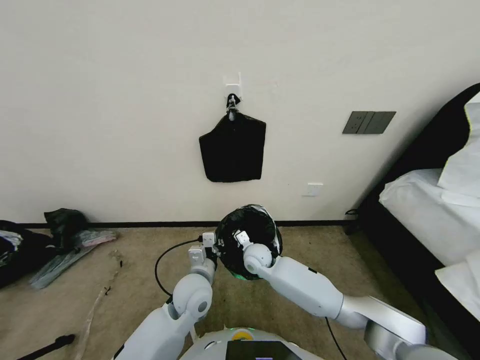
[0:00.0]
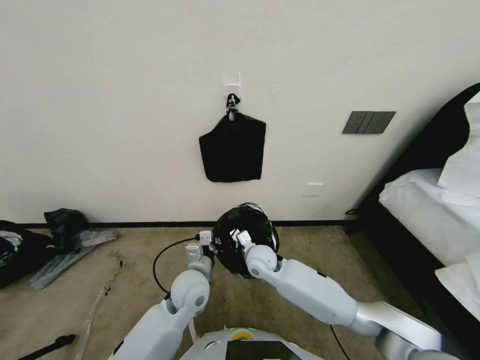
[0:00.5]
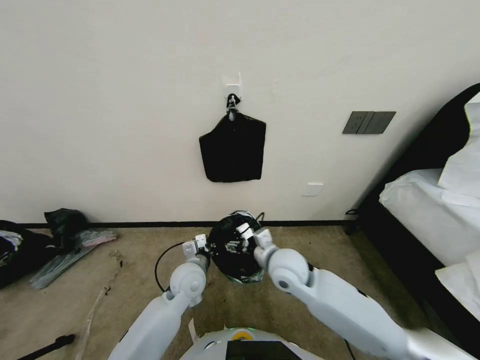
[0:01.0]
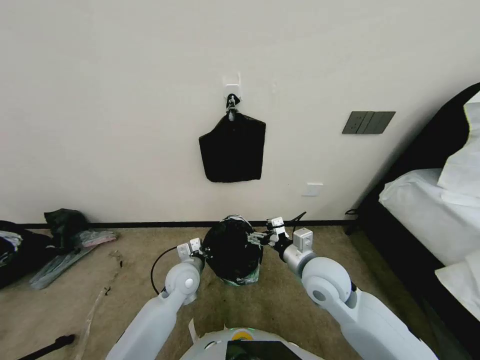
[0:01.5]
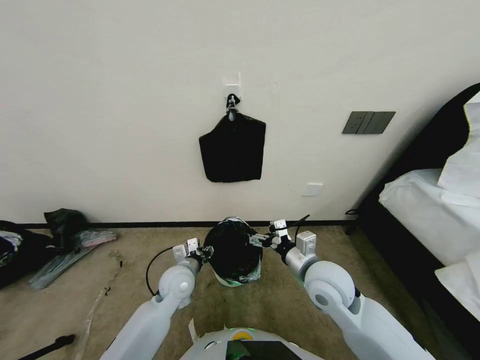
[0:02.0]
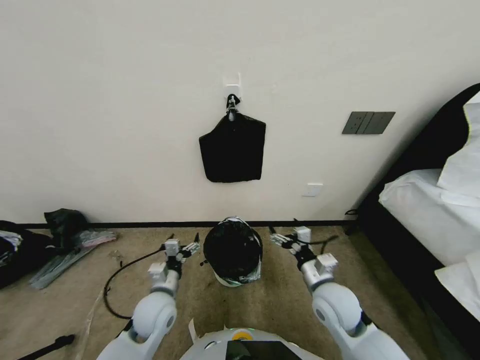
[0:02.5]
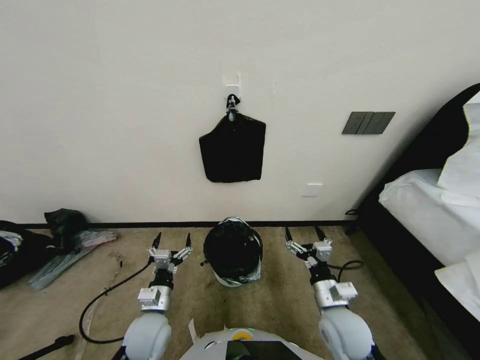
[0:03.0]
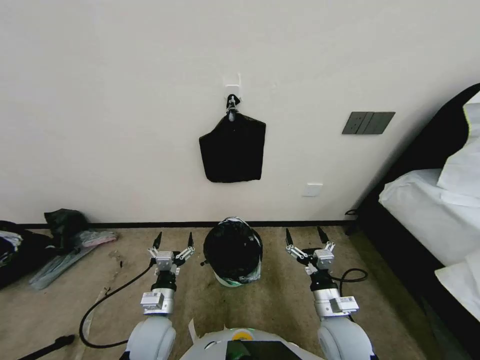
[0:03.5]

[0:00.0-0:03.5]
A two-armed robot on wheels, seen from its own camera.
Task of the whole recording: Place a trash bag onto the trash bin.
0:00.0 to 0:02.0: The right gripper travels upward, backward and to the right by some 25 cm, and opens its fingers, while the left gripper shifts some 5 cm to the left.
0:02.0 to 0:03.5: The left gripper is displaced backward by roughly 10 cm, and opens its fingers; the right gripper moves downward and backward, approximately 15 cm.

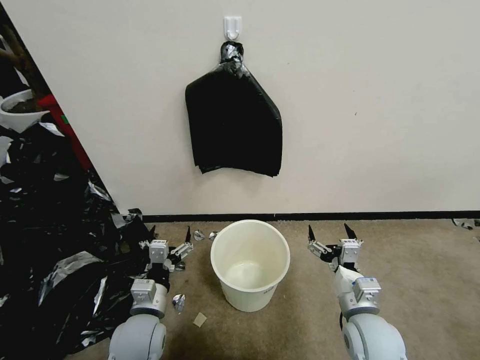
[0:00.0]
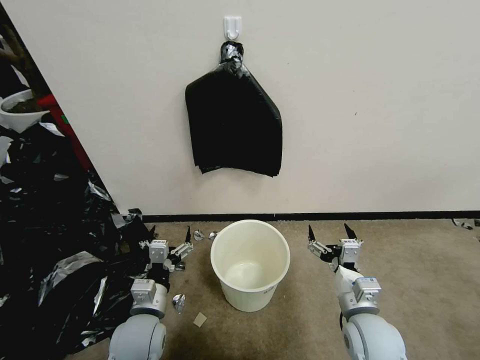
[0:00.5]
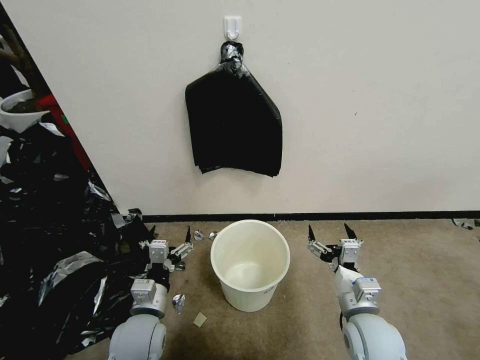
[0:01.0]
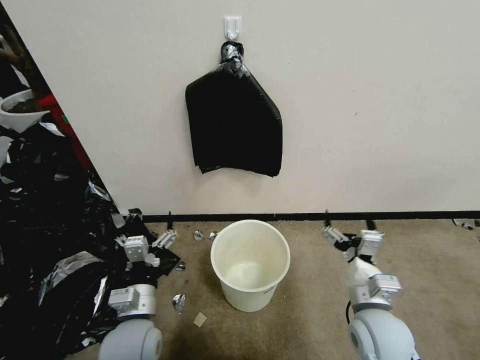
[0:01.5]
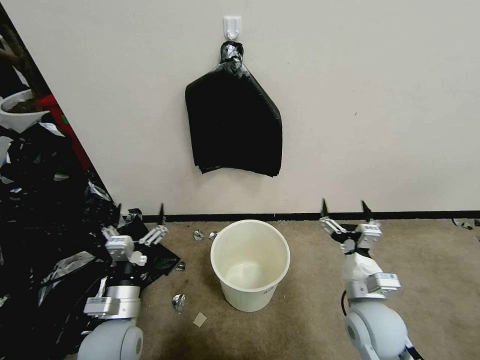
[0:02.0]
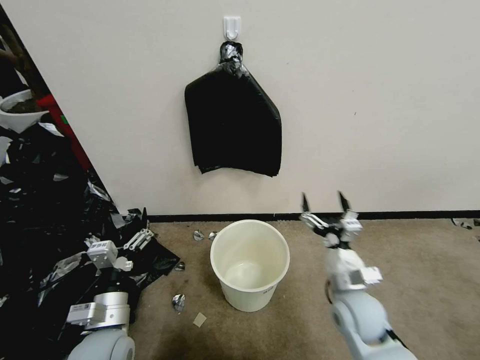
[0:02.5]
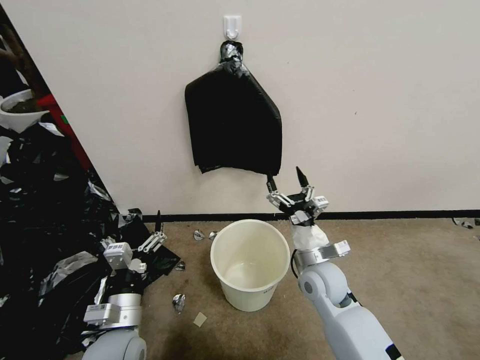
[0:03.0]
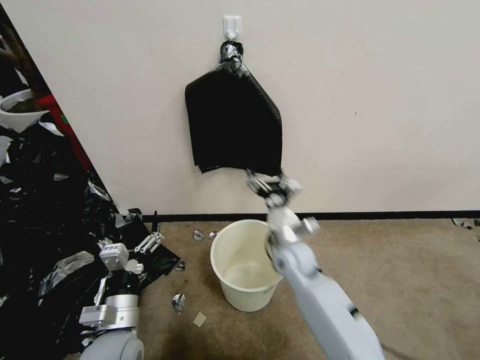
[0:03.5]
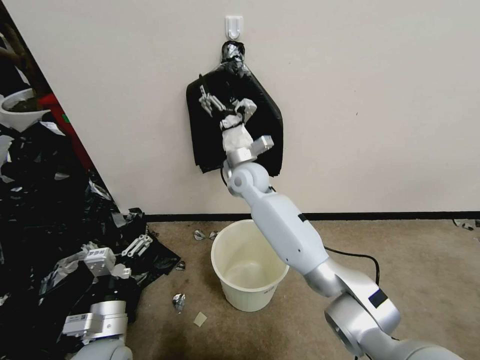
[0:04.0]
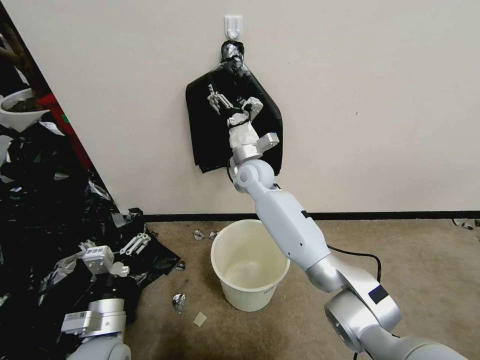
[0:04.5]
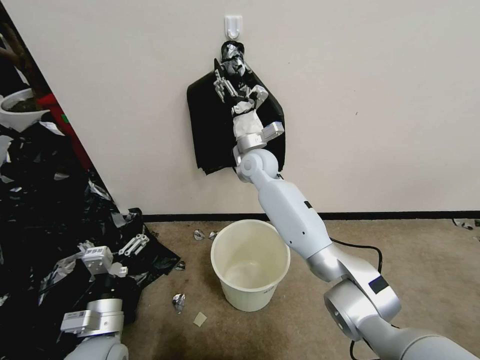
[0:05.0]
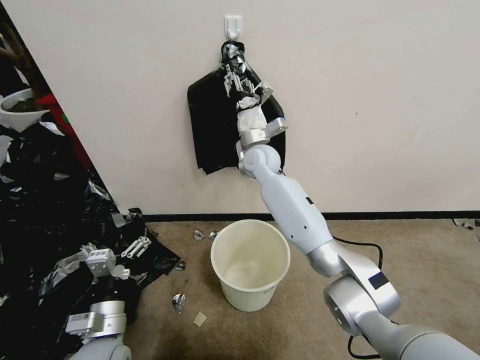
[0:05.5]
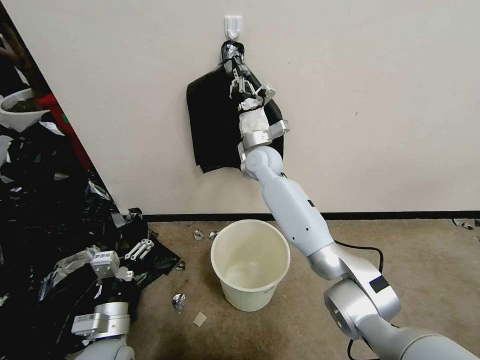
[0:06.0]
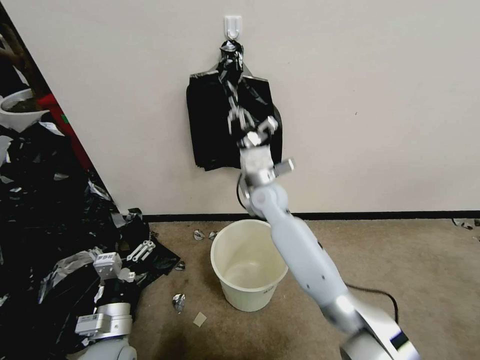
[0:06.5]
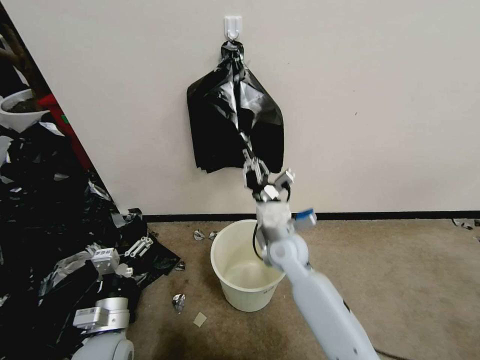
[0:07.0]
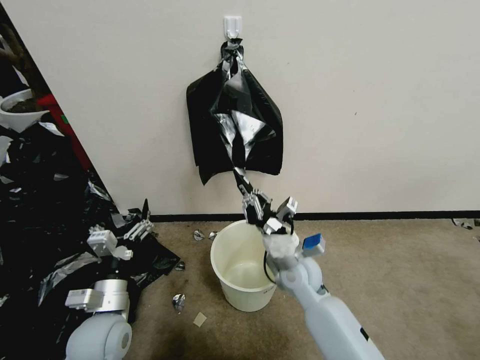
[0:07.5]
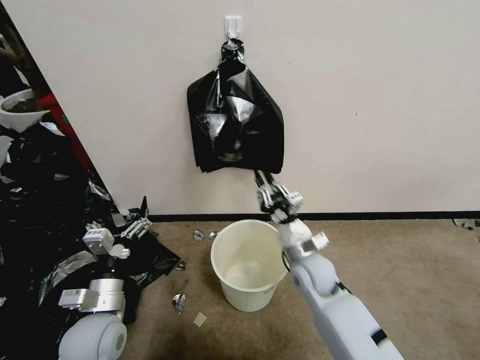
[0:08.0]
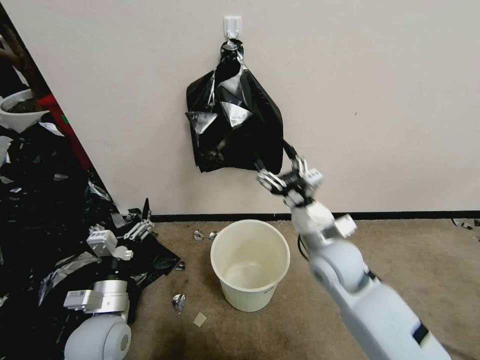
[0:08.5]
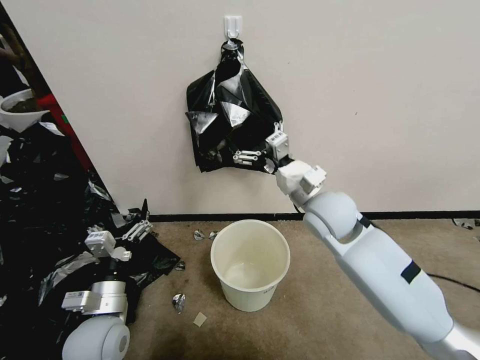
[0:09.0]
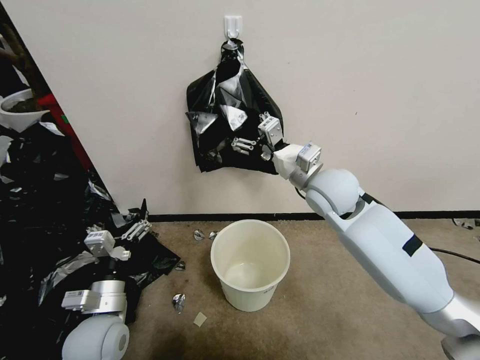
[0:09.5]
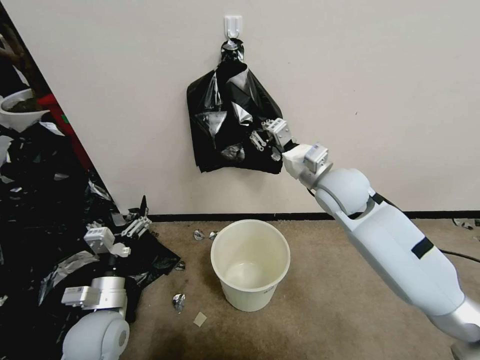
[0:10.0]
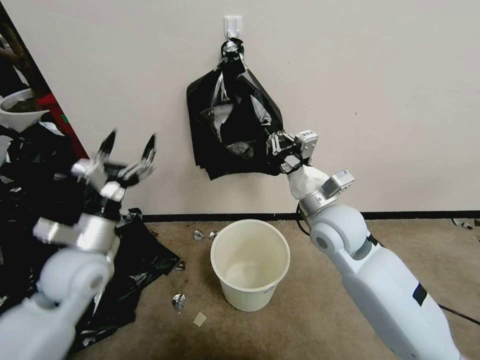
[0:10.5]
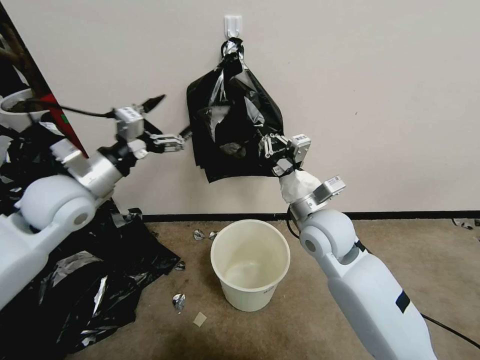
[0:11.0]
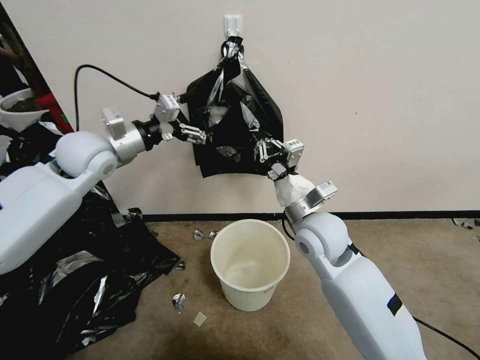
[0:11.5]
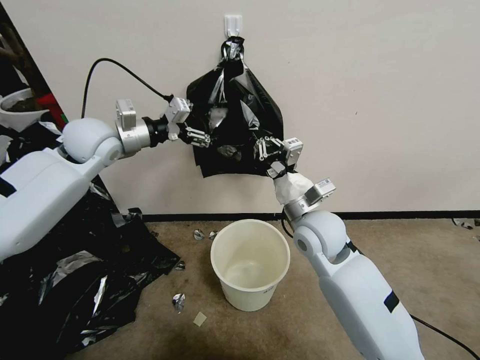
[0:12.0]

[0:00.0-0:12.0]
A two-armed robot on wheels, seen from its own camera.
Task of the whole recording: Place a trash bag onto the trash bin.
0:02.0 to 0:04.0: The right gripper moves forward and to the left, roughly 40 cm.
0:04.0 to 0:06.0: The right gripper shifts by approximately 5 cm, and closes.
0:06.0 to 0:08.0: The right gripper shifts roughly 30 cm backward, downward and to the right.
0:08.0 to 0:10.0: The right gripper moves upward and forward, roughly 20 cm, and opens, then closes again.
0:10.0 to 0:12.0: The right gripper travels backward and downward by about 10 cm. The left gripper goes approximately 40 cm forward and upward.

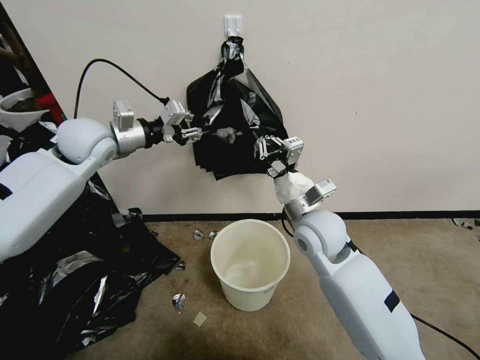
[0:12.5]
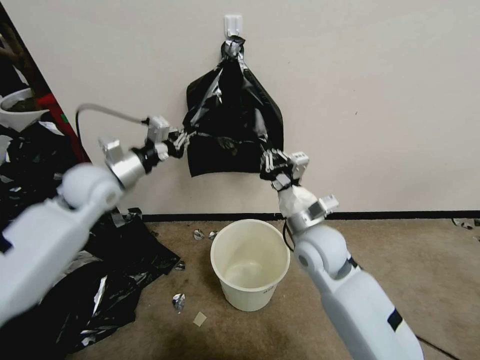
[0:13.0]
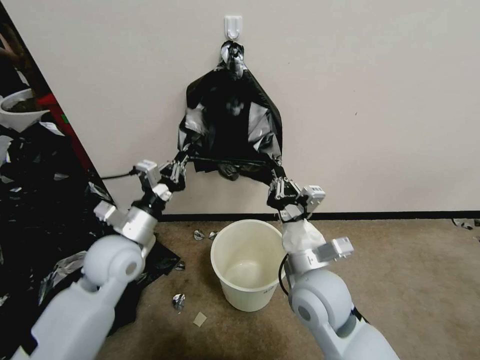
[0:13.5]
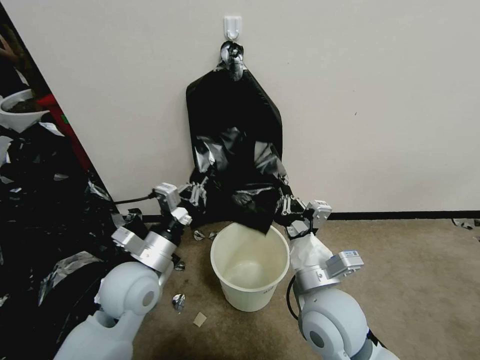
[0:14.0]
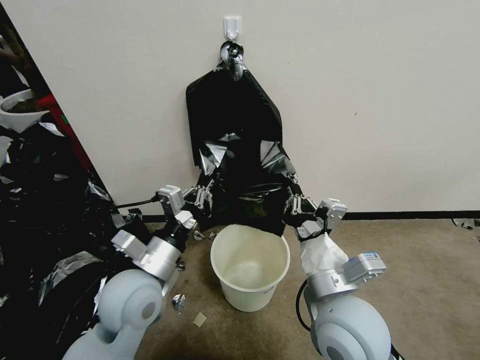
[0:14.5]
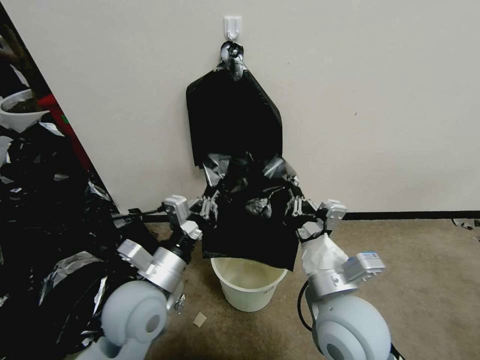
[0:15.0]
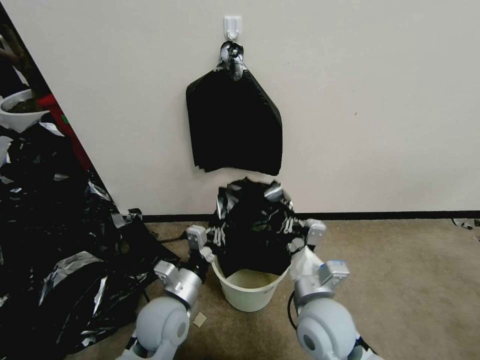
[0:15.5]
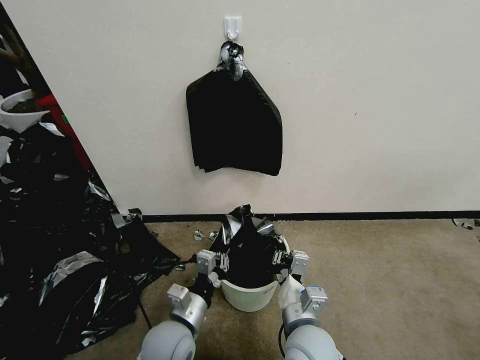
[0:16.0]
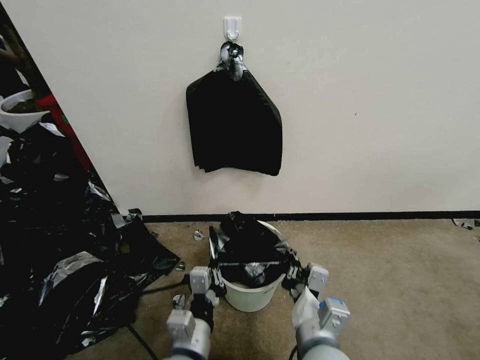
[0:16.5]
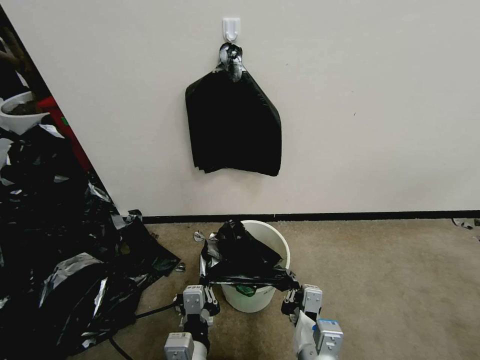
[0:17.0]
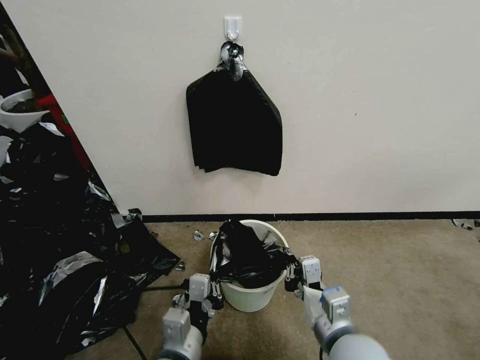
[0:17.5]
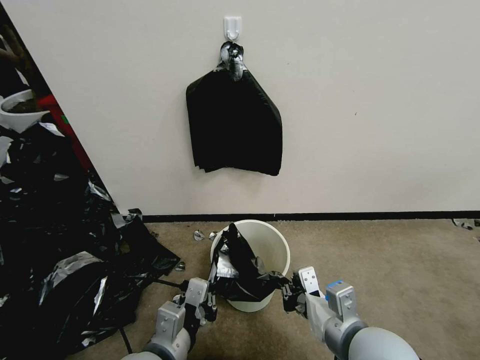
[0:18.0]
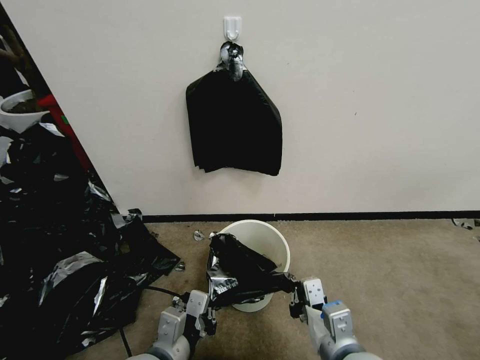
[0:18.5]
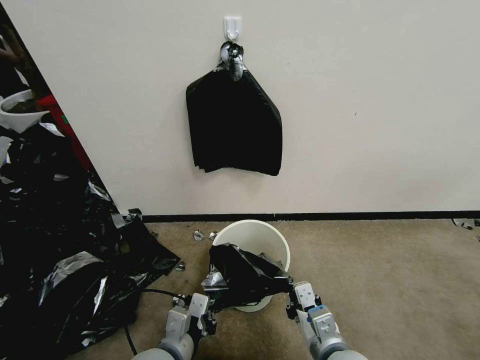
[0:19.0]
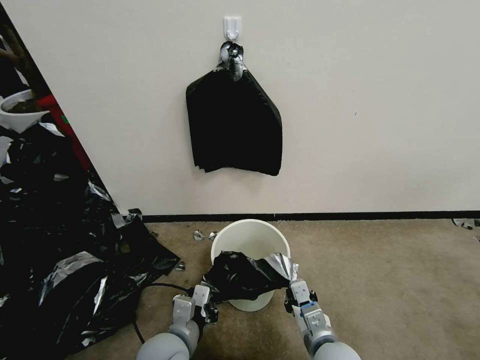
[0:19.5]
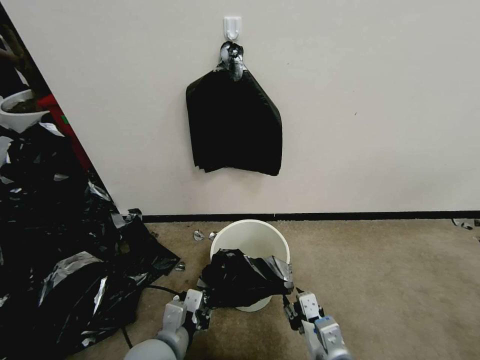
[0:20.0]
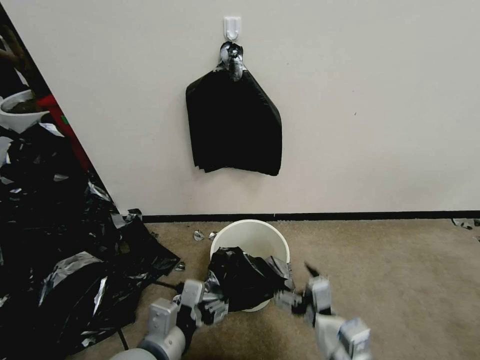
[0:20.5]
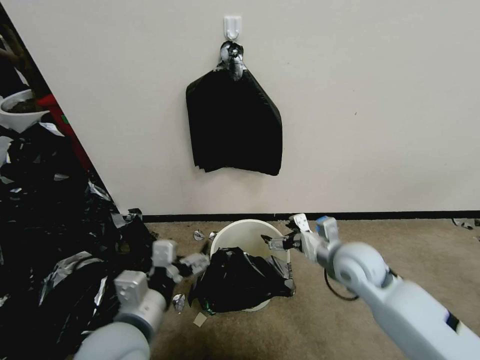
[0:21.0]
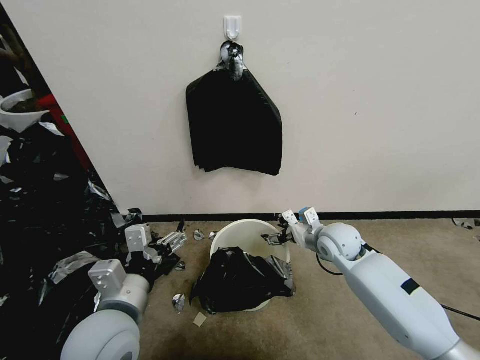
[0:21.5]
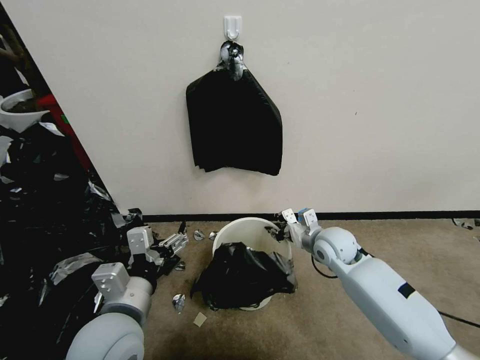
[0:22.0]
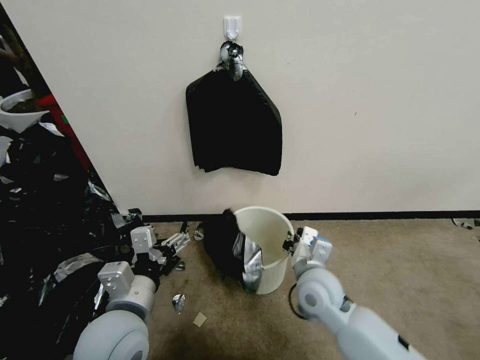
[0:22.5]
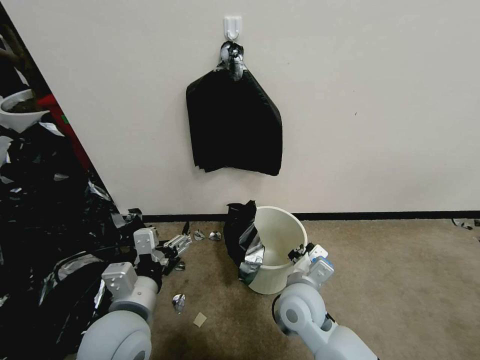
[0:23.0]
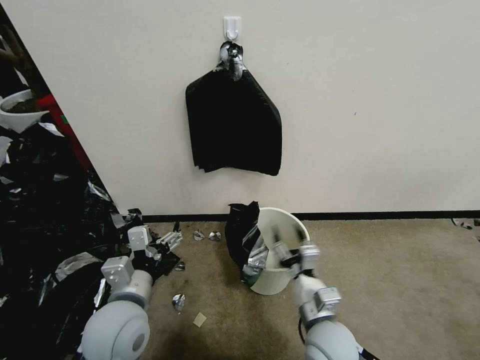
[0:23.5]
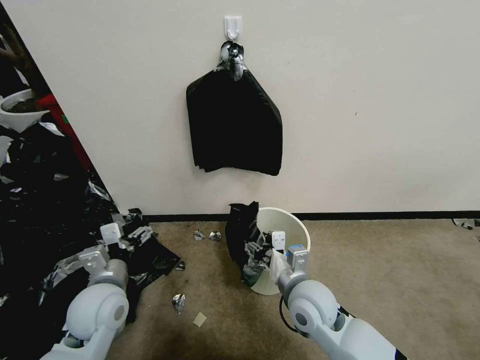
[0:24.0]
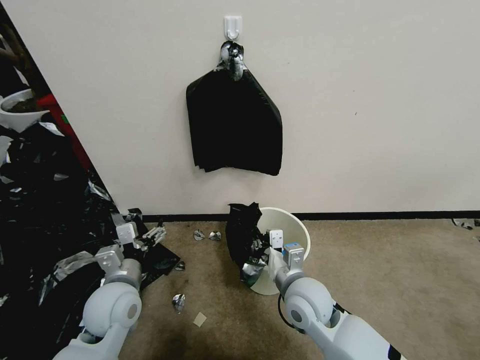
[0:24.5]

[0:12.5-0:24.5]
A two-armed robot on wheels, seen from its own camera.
Task of the whole recording: Place a trash bag onto the trash bin.
0:12.5 to 0:14.5: The right gripper travels backward by approximately 15 cm, while the left gripper shifts about 30 cm backward, downward and to the right.
0:14.5 to 0:16.5: The left gripper moves backward, downward and to the right, some 20 cm, while the right gripper shifts roughly 10 cm downward and backward.
0:16.5 to 0:18.5: The left gripper goes about 5 cm to the left; the right gripper travels to the right by about 5 cm.
0:18.5 to 0:20.5: The right gripper moves some 10 cm downward and comes back, and opens up; the left gripper reaches approximately 10 cm downward, then returns, and opens its fingers.
0:20.5 to 0:22.5: The left gripper changes place by roughly 5 cm. Meanwhile the right gripper goes approximately 20 cm forward, and closes up.
0:22.5 to 0:24.5: The right gripper reaches some 10 cm backward, then returns, and opens and closes again. Meanwhile the left gripper shifts some 10 cm forward, downward and to the left.
